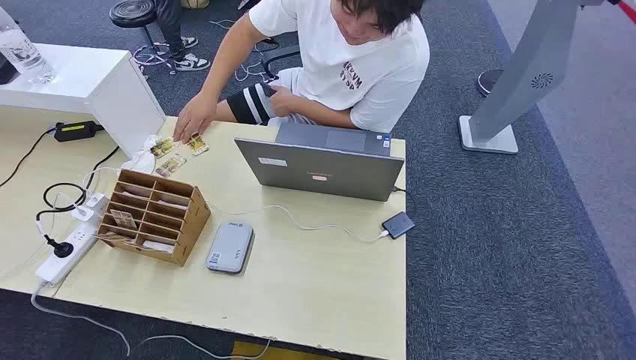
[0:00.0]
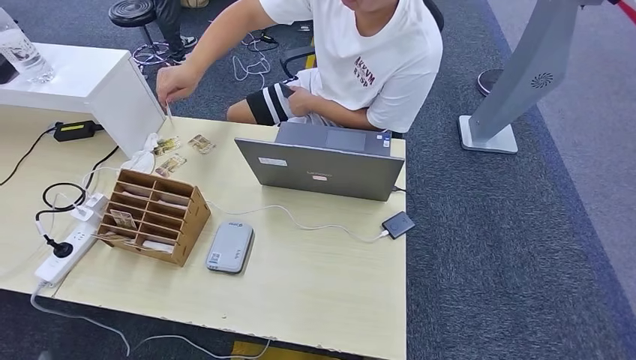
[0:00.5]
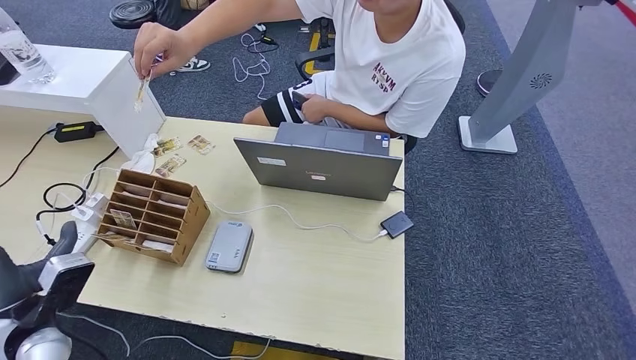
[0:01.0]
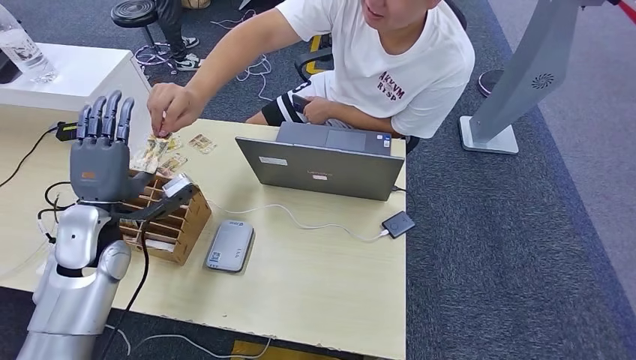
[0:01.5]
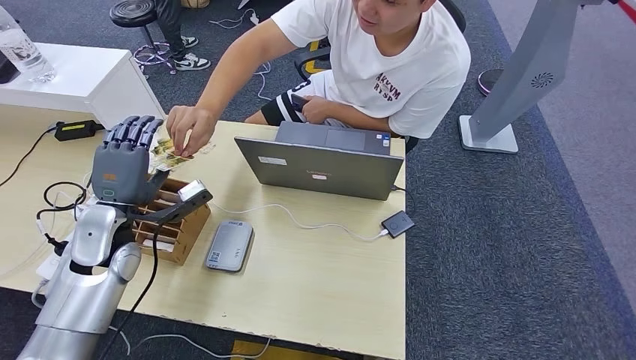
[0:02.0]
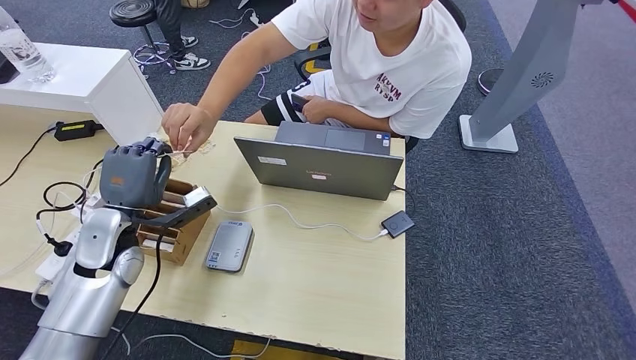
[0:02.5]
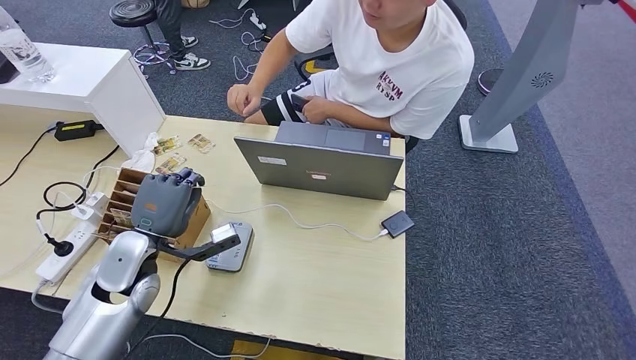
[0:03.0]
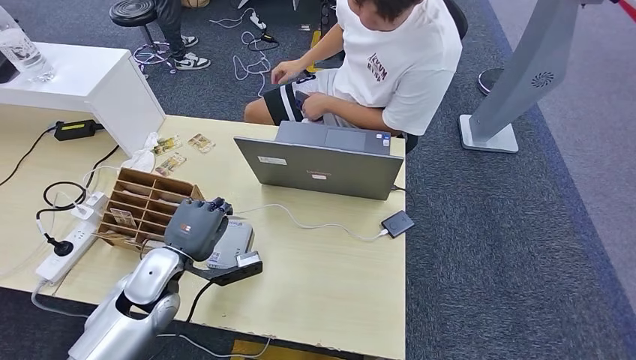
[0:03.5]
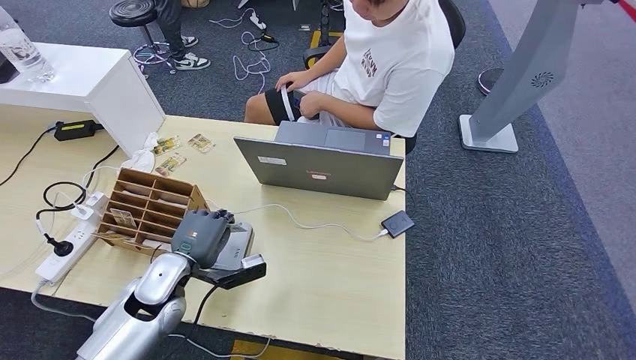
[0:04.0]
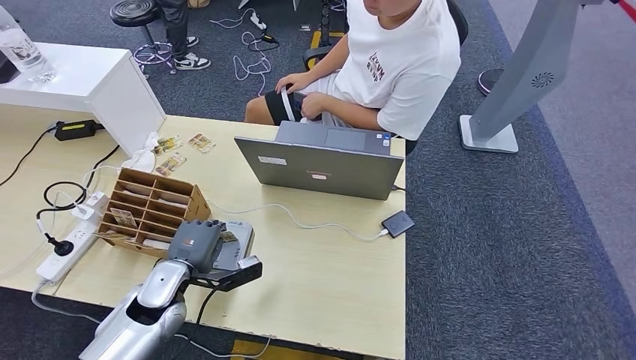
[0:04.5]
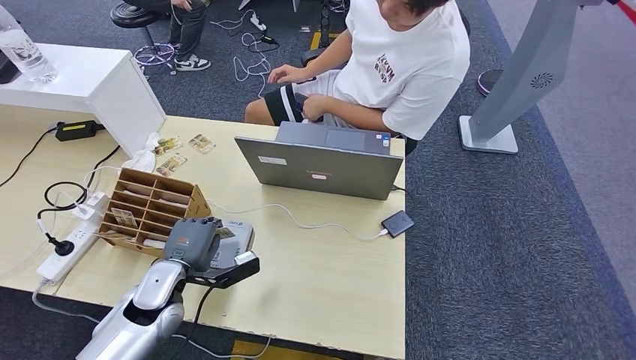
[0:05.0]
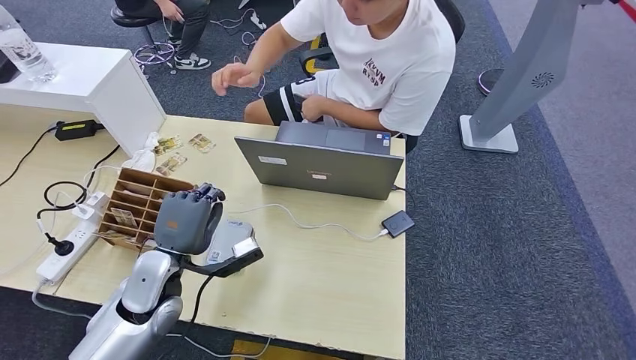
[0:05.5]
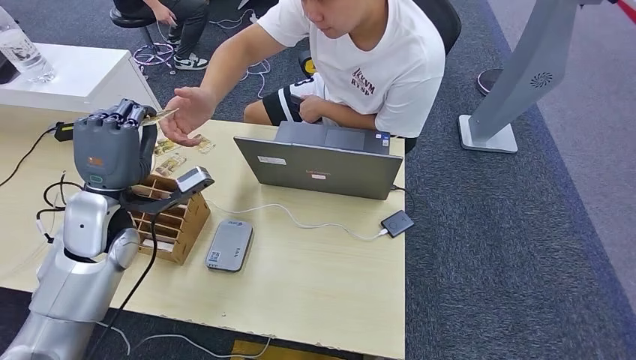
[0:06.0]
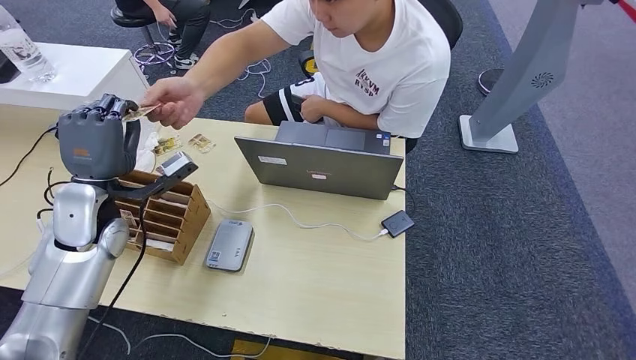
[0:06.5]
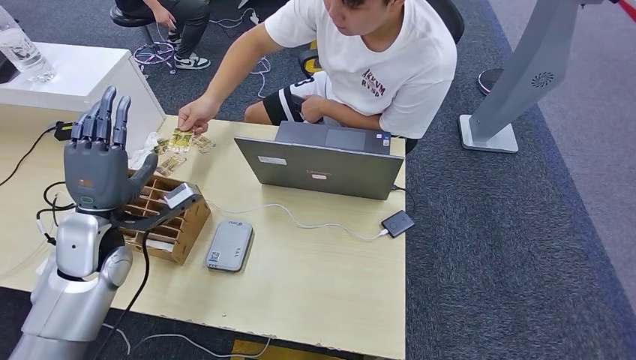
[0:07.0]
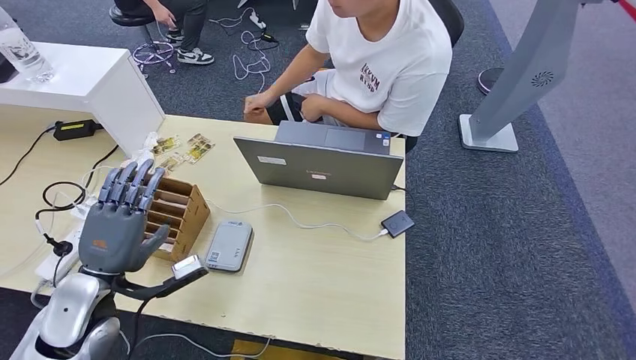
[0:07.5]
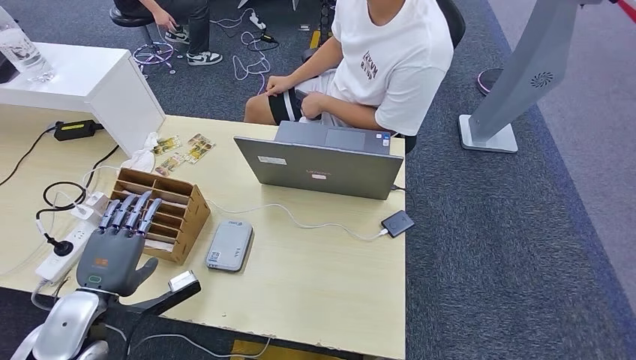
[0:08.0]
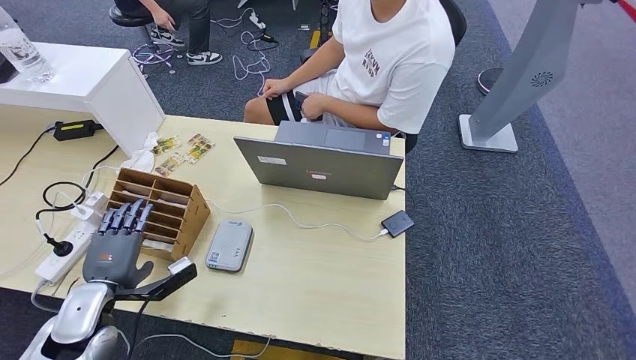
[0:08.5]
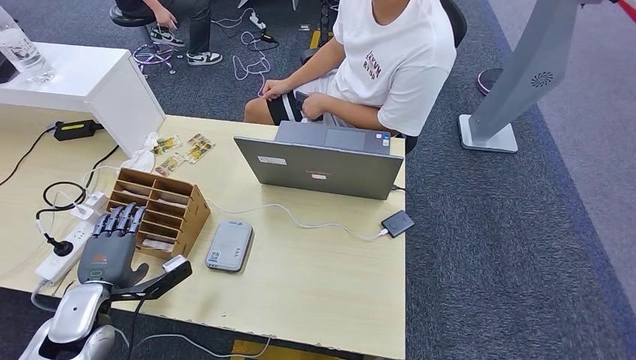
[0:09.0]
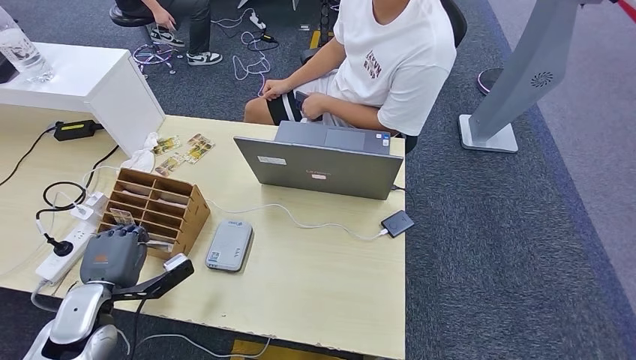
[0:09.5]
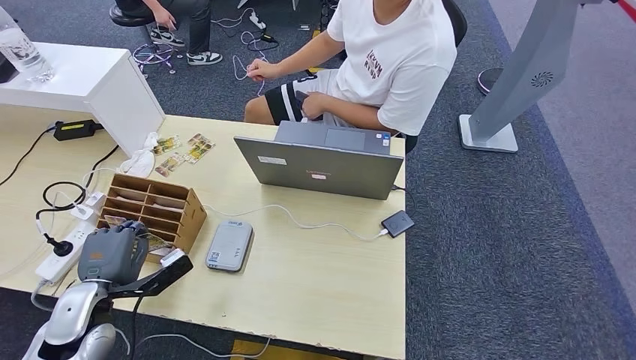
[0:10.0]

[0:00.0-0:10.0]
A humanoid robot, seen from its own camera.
Step, 0:00.0 to 0:03.0: Take the ID card from the person's hand.
Step, 0:03.5 to 0:04.5: Place the ID card on the card reader.
Step, 0:05.0 to 0:07.5: Hand the ID card to the person.
0:08.0 to 0:10.0: The hands move only a little.

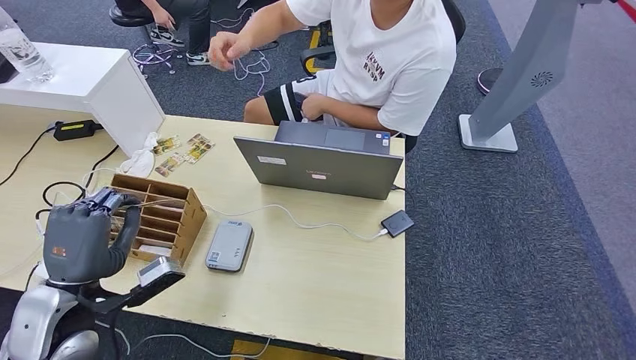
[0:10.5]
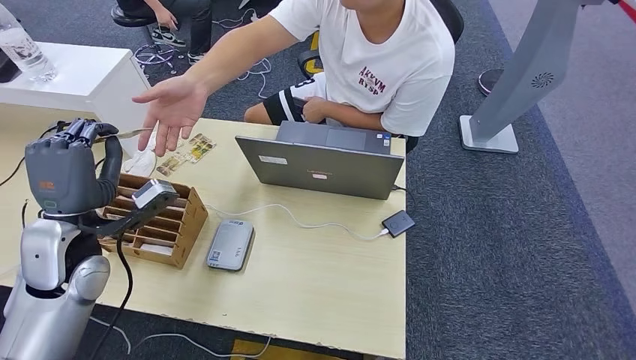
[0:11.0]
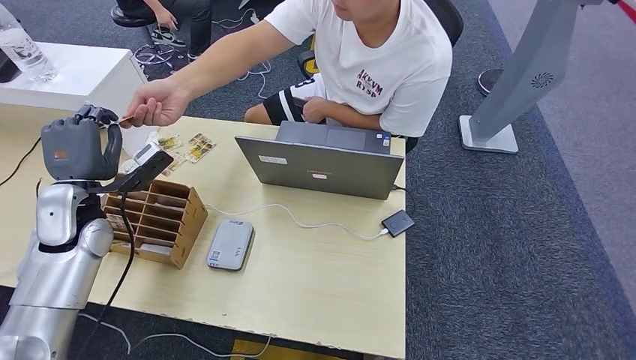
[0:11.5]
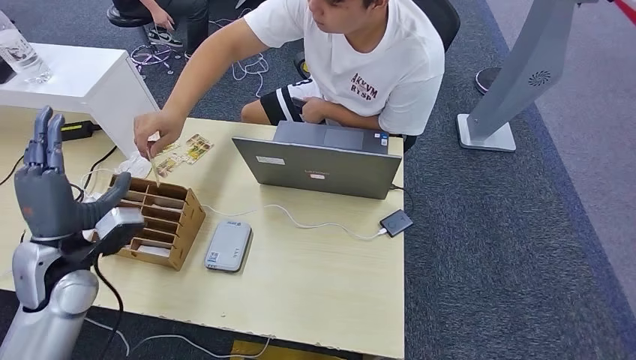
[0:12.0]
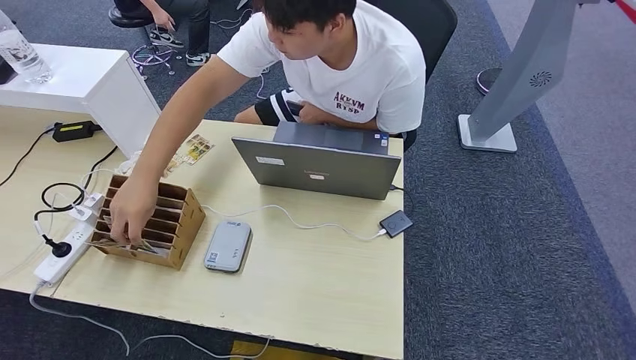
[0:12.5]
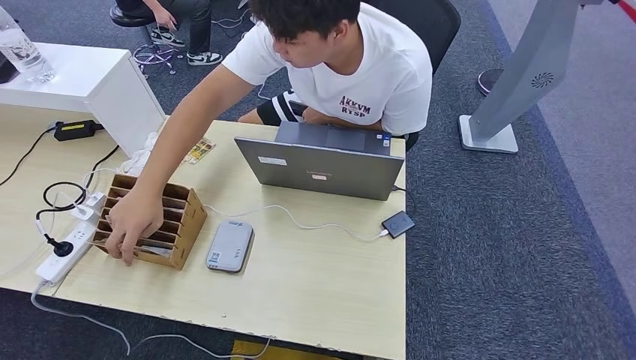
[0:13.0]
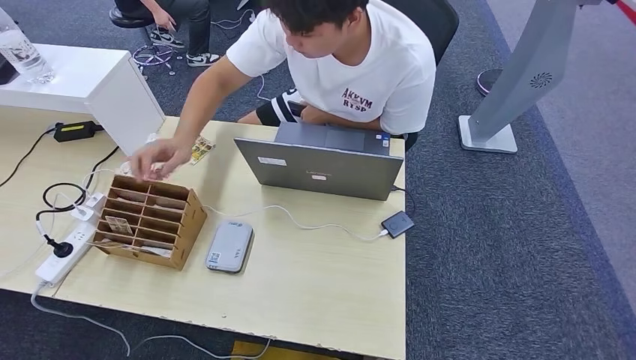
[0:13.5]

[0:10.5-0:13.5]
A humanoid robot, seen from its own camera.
Step, 0:11.0 to 0:13.5: Hand the room key to the person.

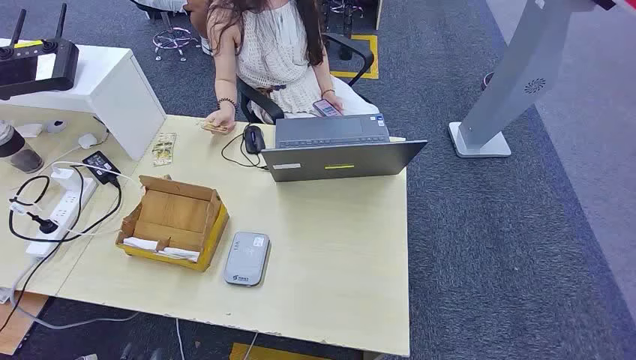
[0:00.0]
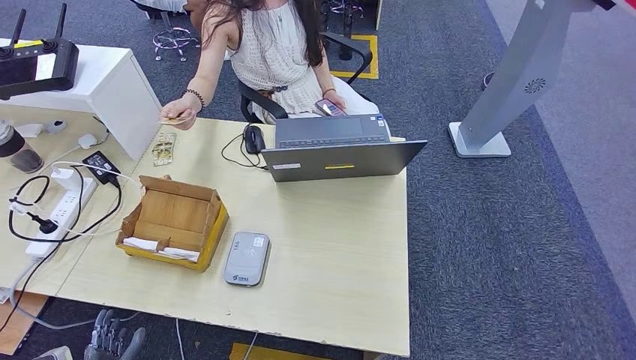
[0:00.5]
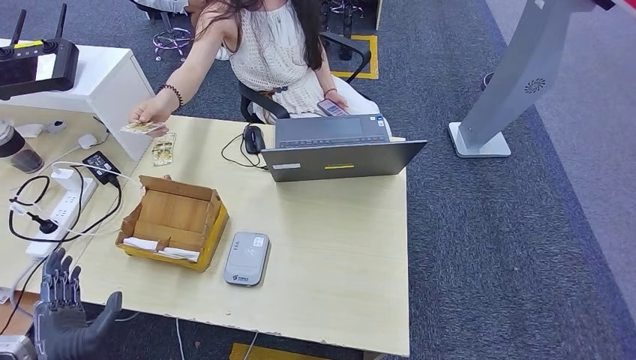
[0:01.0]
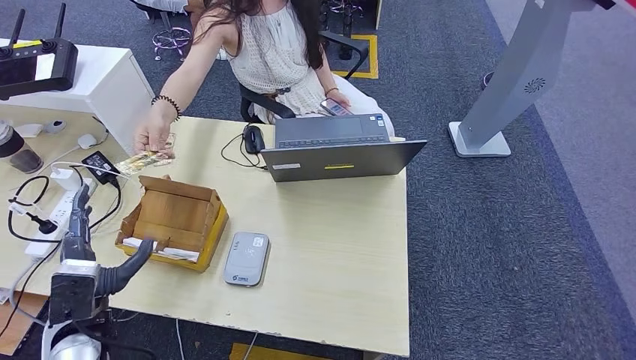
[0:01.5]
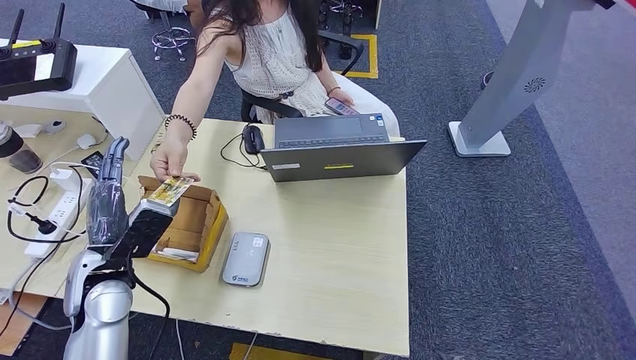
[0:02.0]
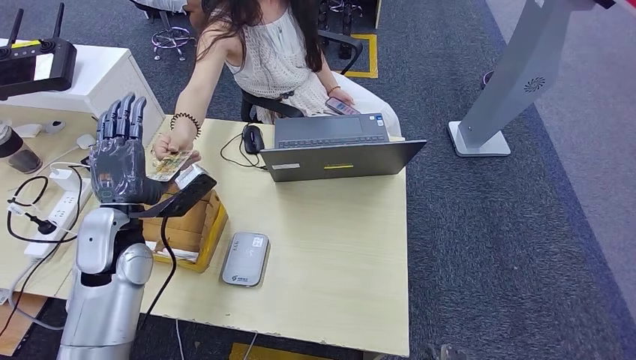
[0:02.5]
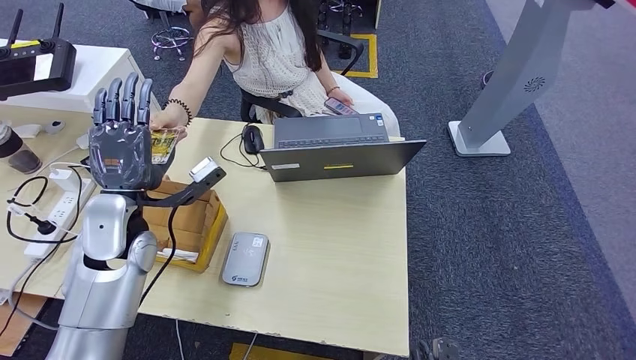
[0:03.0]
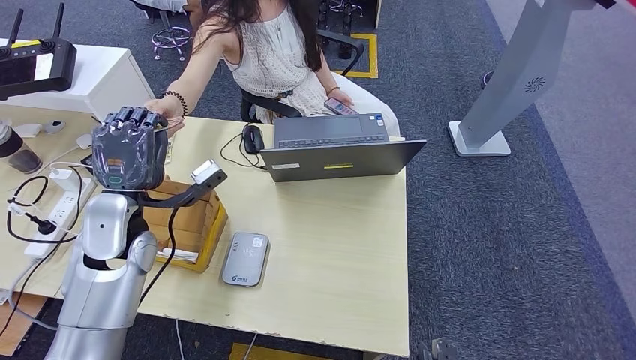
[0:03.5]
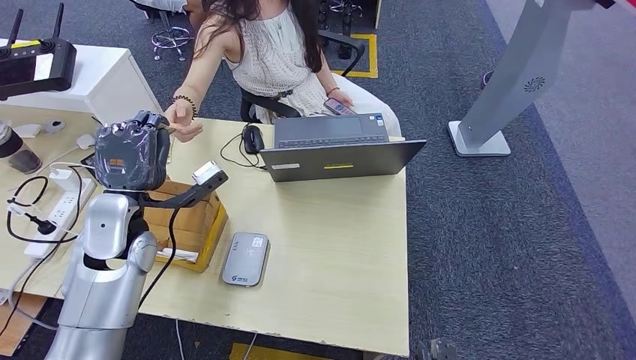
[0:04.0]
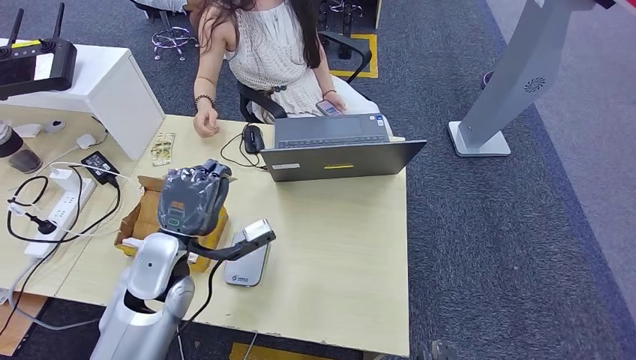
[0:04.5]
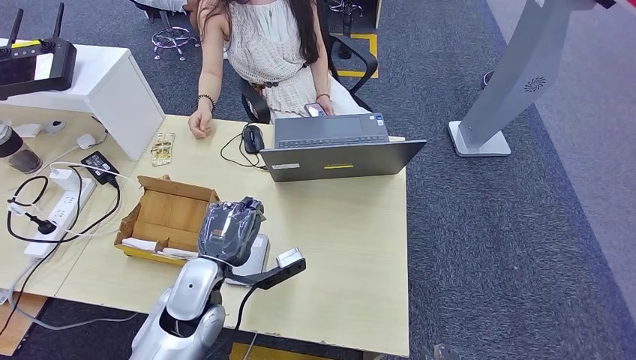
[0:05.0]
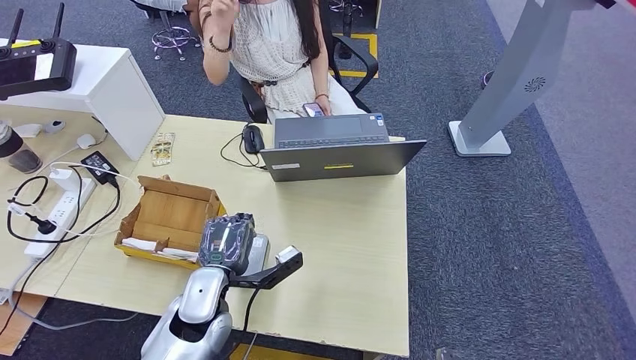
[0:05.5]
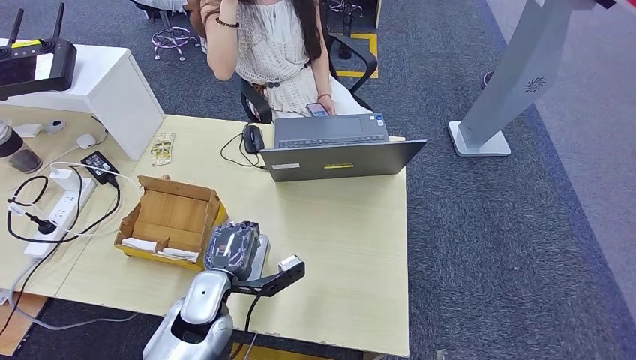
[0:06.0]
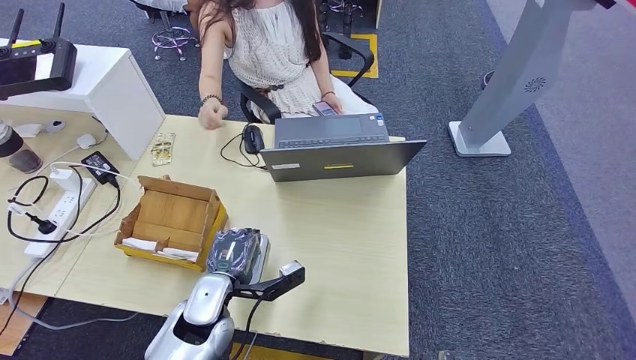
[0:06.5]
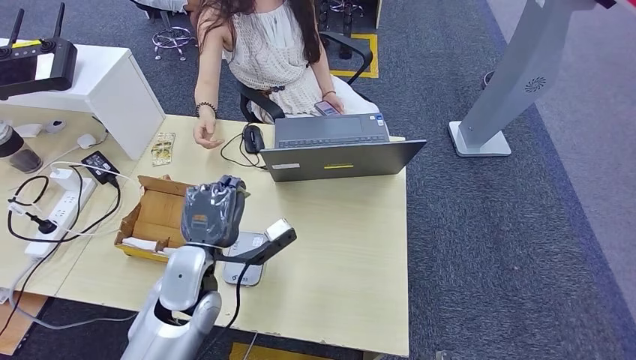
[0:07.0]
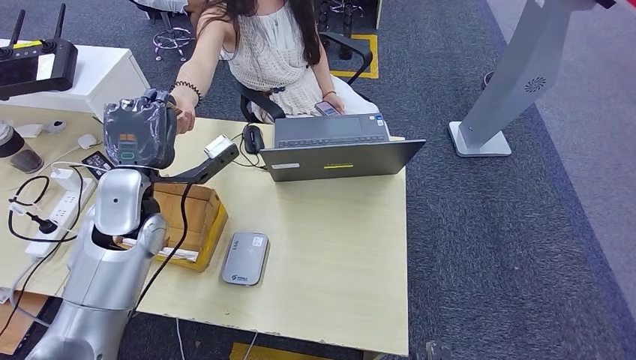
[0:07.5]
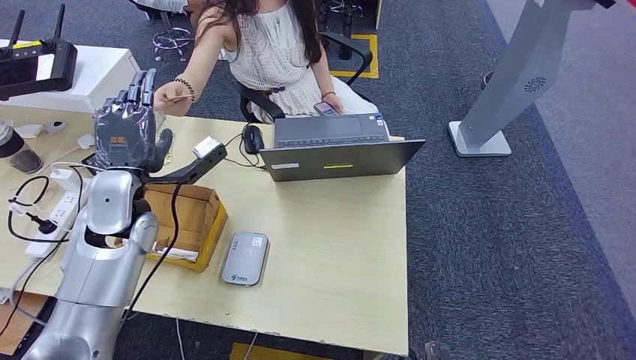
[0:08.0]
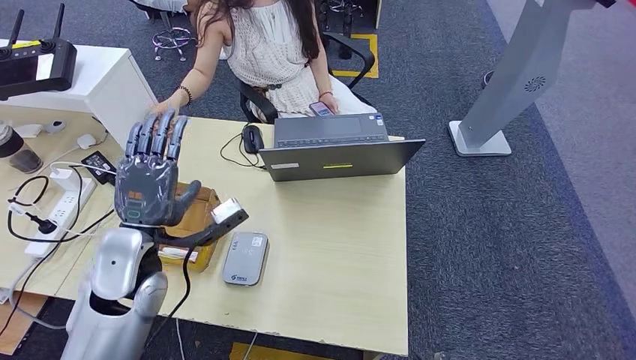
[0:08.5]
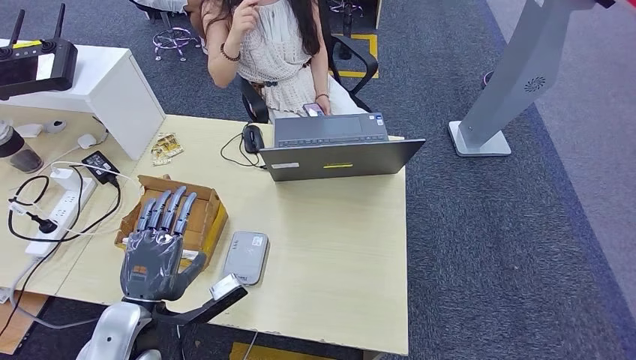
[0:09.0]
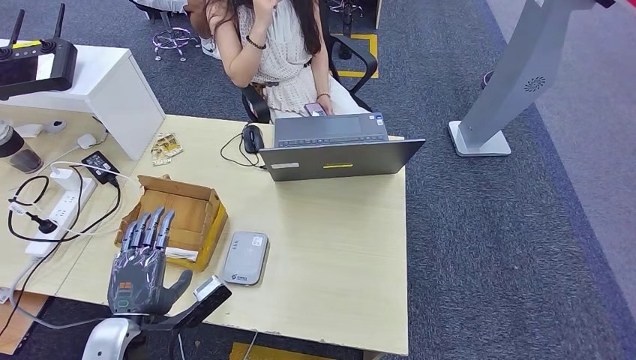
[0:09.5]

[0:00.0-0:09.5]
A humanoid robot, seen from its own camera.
Step, 0:00.0 to 0:03.5: Take the ID card from the person's hand.
Step, 0:04.0 to 0:07.0: Place the ID card on the card reader.
Step, 0:07.5 to 0:08.5: Hand the ID card to the person.
0:02.0 to 0:04.0: The left hand is displaced forward and upward by some 10 cm.
0:04.0 to 0:05.5: The left hand moves to the right, downward and backward, approximately 20 cm.
0:05.5 to 0:07.5: The left hand goes some 20 cm upward, forward and to the left.
0:07.5 to 0:09.5: The left hand moves backward and downward, some 25 cm.
